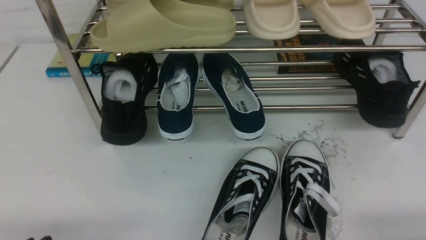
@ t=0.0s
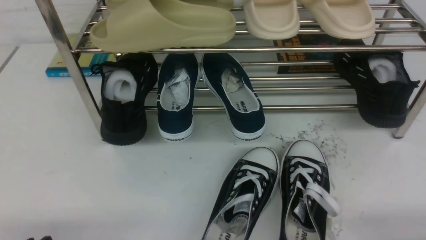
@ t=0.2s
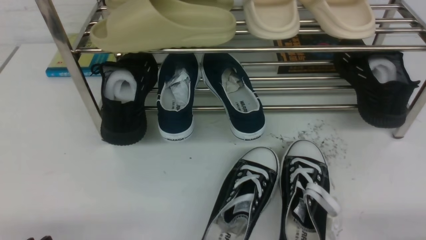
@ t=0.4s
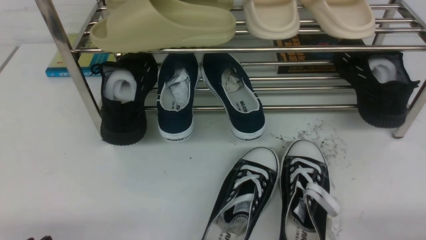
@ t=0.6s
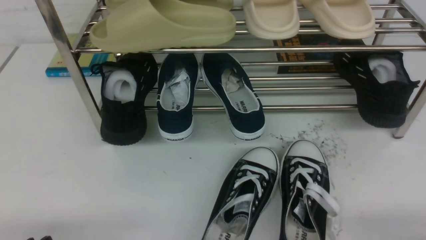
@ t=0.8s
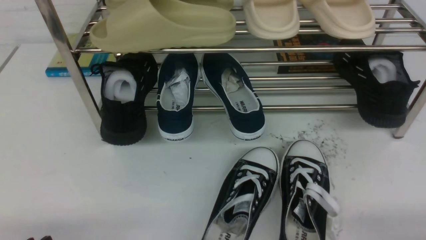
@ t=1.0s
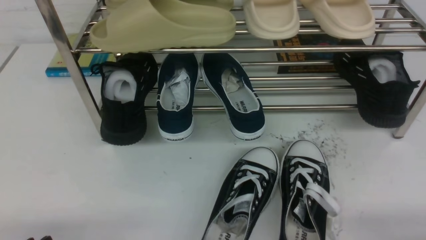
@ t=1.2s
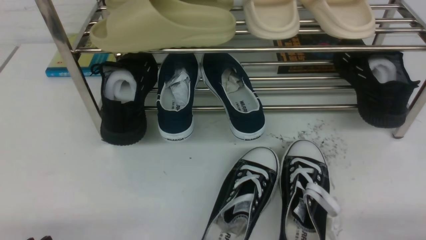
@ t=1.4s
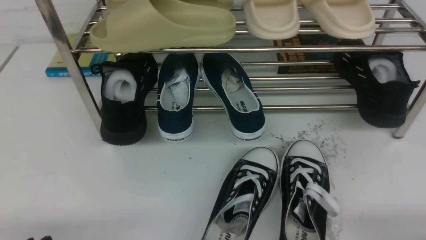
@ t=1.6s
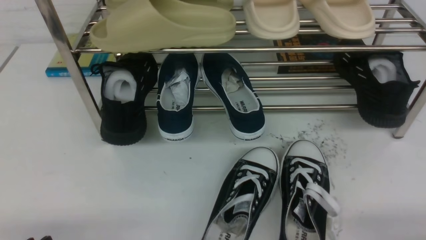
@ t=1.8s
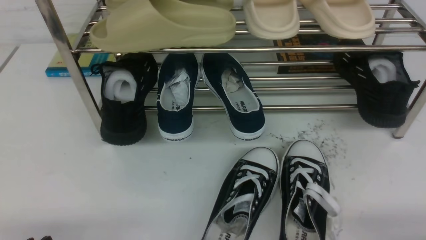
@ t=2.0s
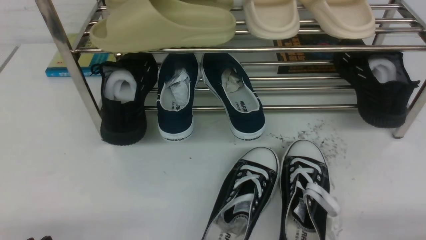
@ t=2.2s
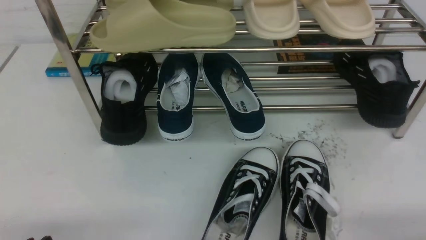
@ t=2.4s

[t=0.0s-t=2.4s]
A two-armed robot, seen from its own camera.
t=1.2s to t=2.4s: Both grippers stay about where they are.
